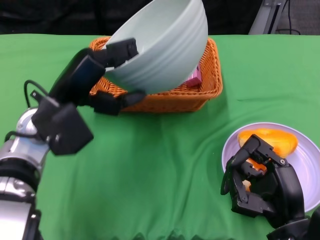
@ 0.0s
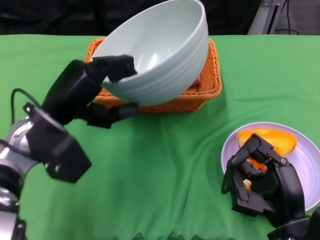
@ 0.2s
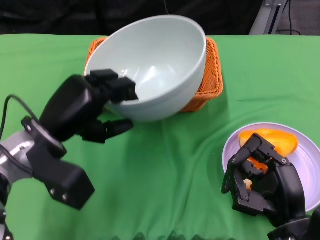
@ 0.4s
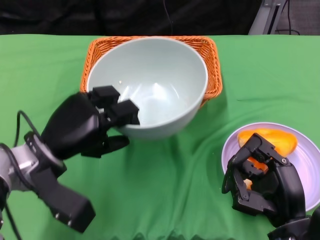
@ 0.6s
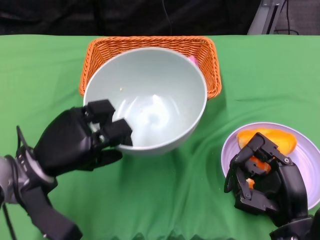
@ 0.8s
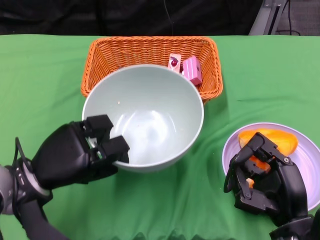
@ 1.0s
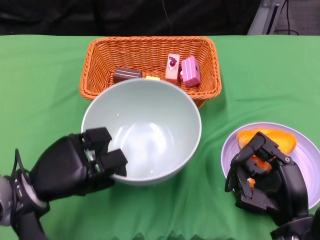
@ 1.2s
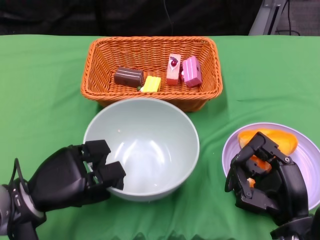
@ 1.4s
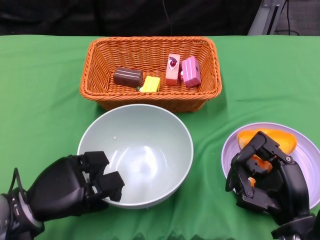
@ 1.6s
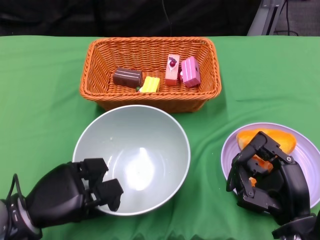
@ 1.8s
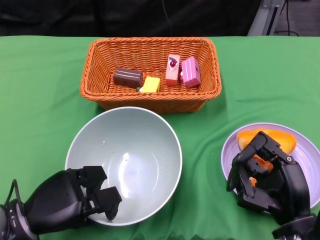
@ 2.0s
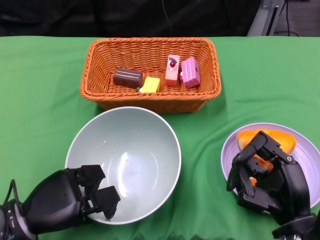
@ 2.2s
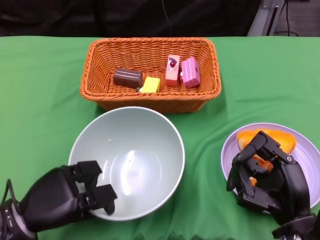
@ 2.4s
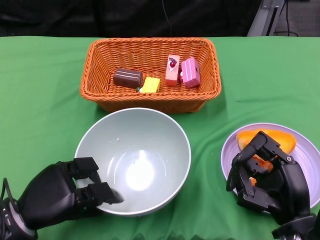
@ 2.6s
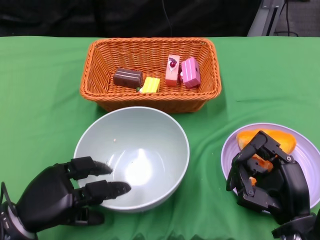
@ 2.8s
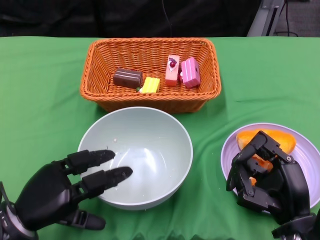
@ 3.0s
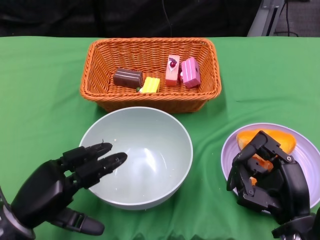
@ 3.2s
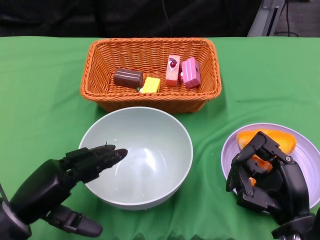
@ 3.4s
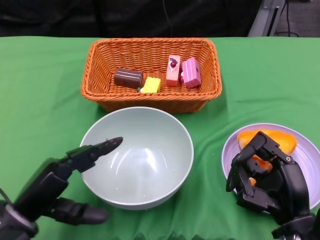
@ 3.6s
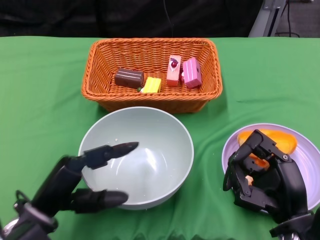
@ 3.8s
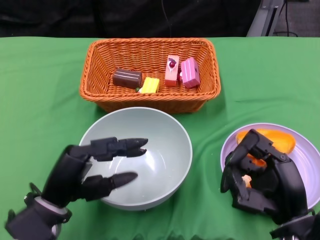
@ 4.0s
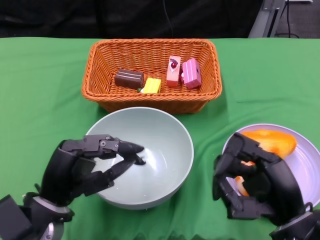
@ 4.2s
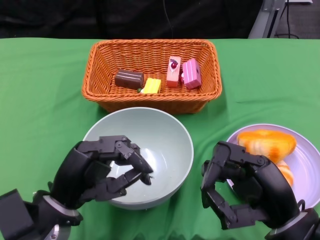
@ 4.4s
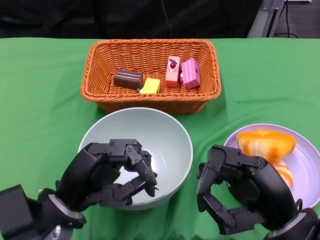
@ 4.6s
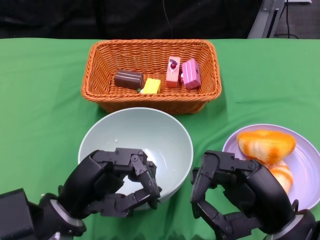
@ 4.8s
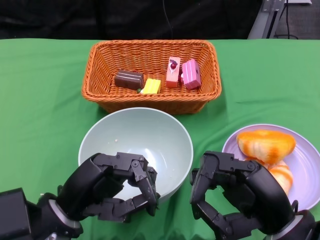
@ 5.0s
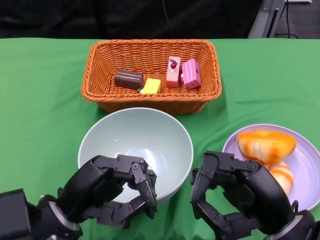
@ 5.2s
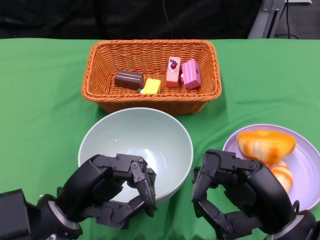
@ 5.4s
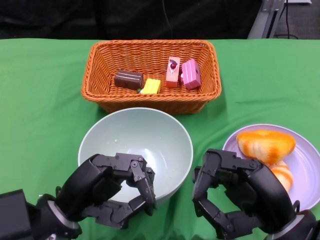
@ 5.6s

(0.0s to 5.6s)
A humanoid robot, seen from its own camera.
Step, 0.0s - 3.0s: Place the bowl on the table with the left gripper.
0.0s - 1.4s: The left hand goes some 15 cm downward, backward and to the left.
2.8s - 4.2s: The left hand goes roughly 5 cm to the right.
